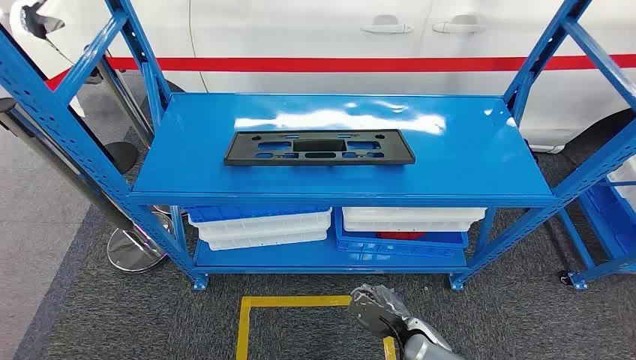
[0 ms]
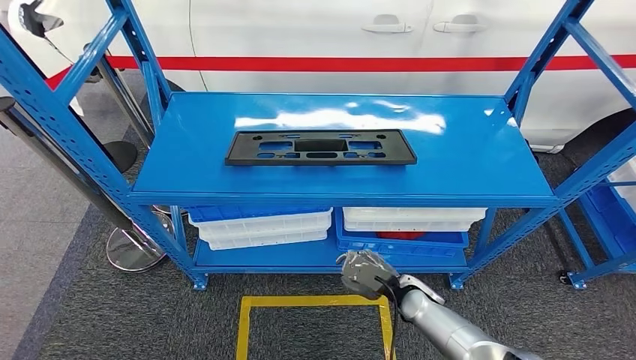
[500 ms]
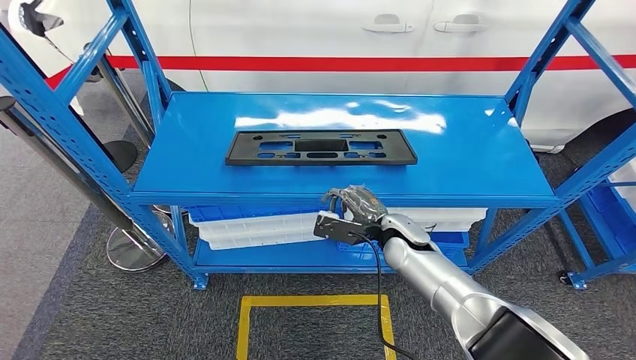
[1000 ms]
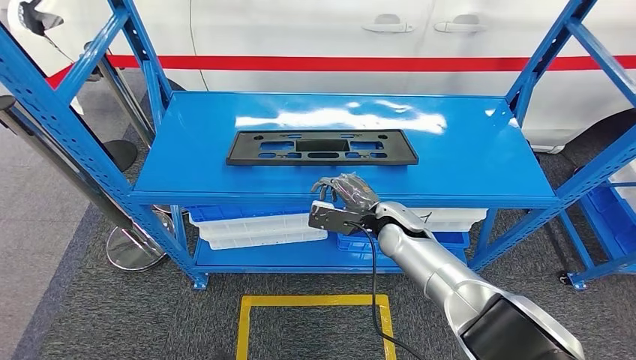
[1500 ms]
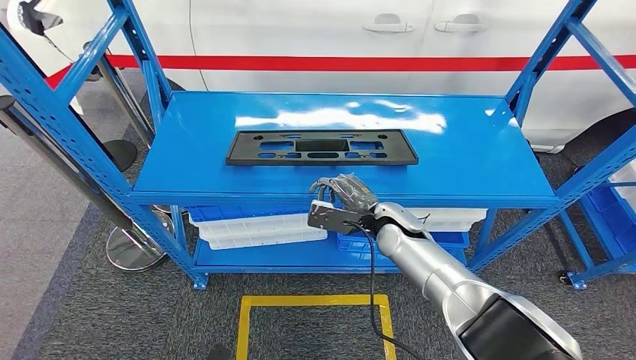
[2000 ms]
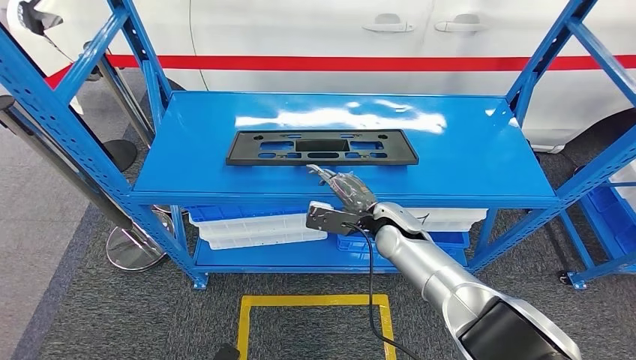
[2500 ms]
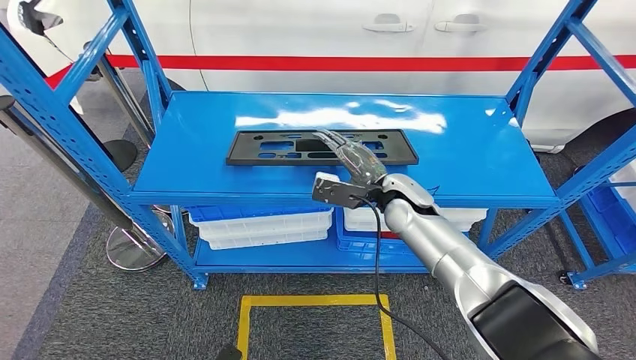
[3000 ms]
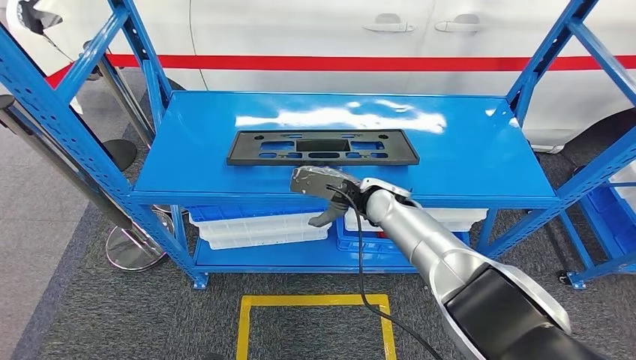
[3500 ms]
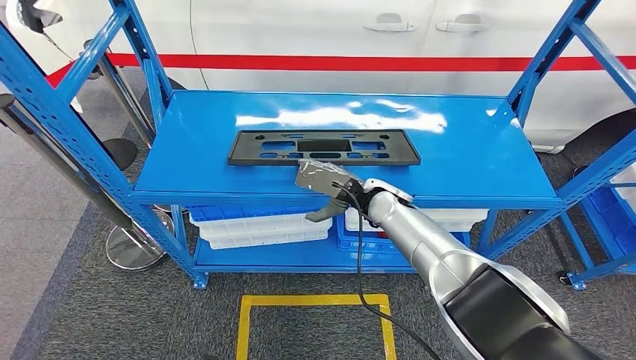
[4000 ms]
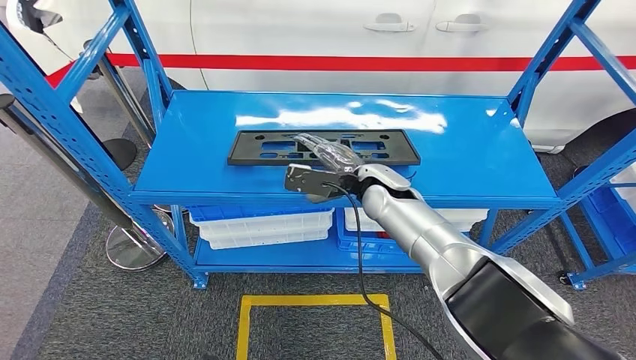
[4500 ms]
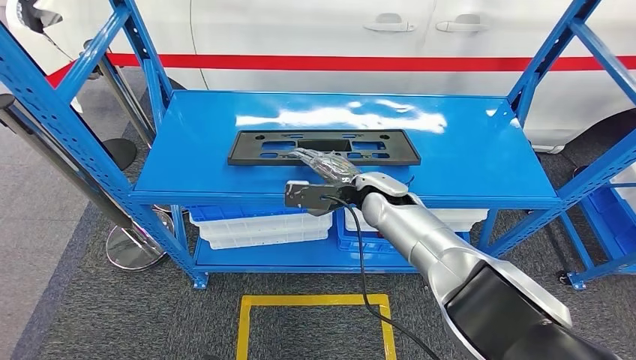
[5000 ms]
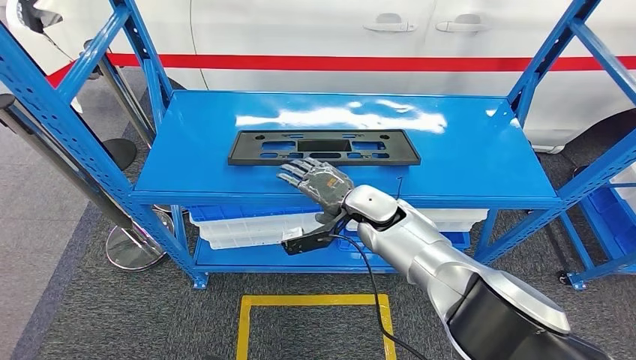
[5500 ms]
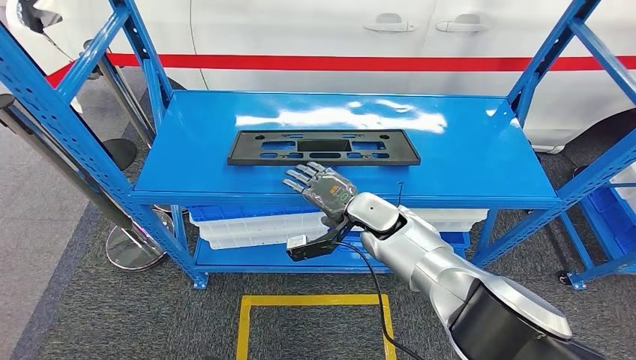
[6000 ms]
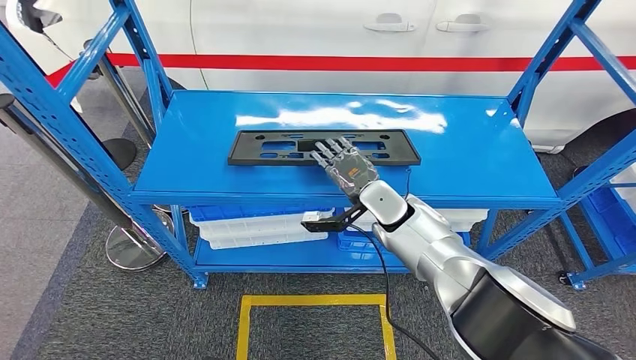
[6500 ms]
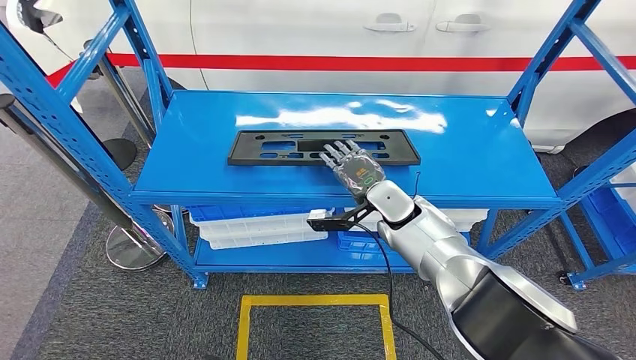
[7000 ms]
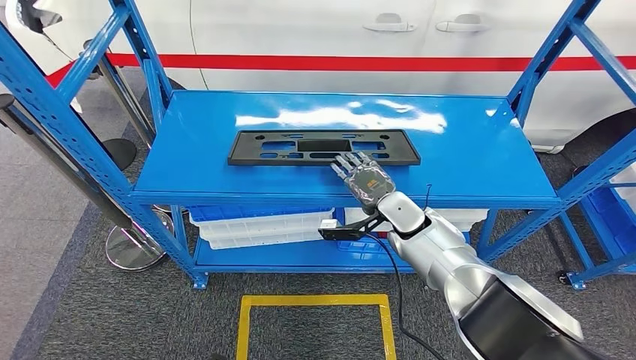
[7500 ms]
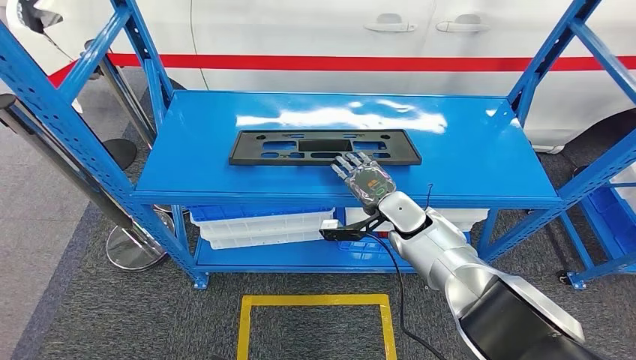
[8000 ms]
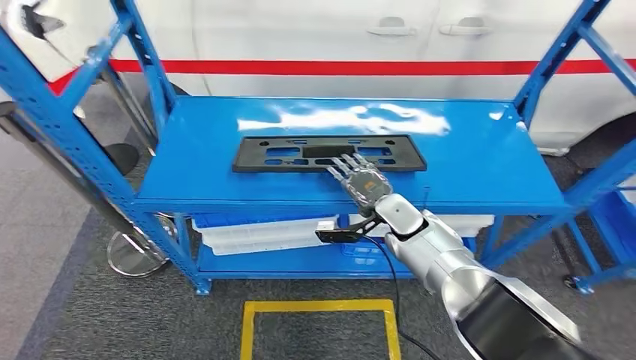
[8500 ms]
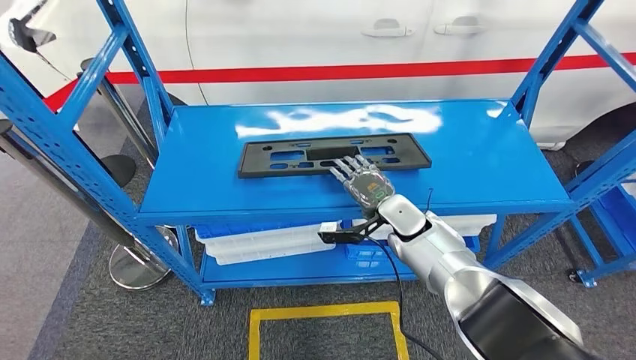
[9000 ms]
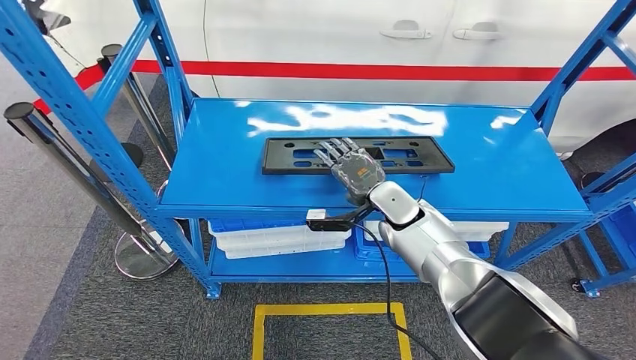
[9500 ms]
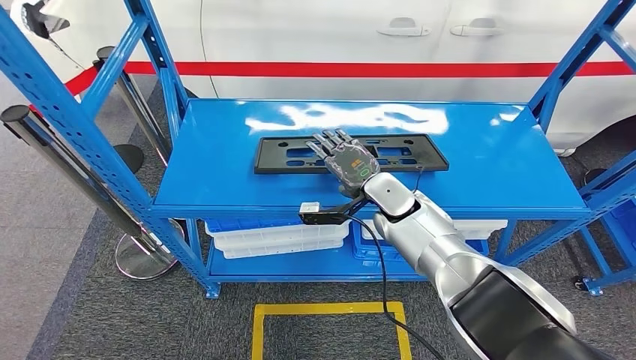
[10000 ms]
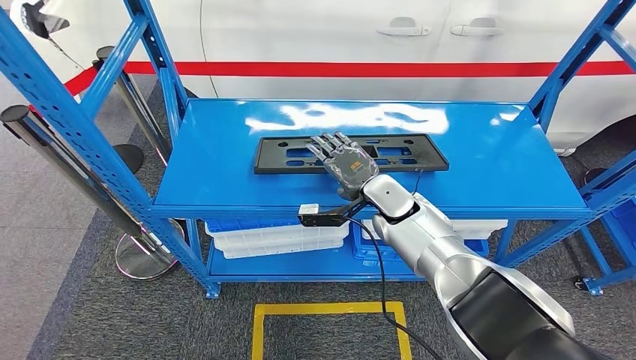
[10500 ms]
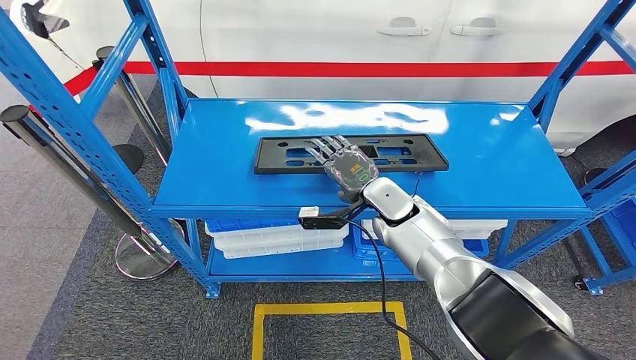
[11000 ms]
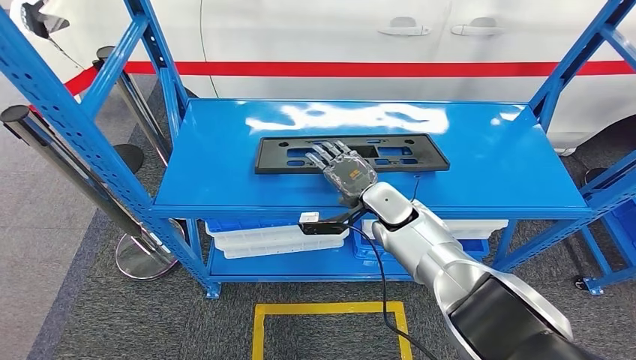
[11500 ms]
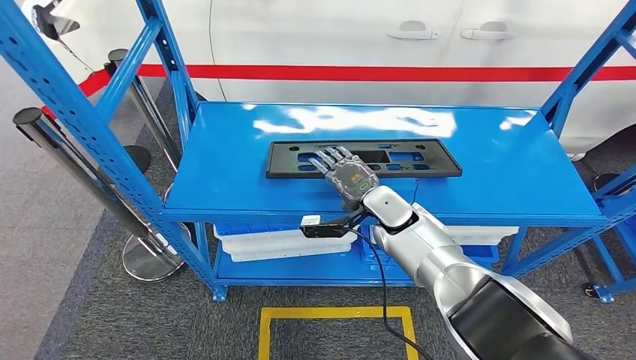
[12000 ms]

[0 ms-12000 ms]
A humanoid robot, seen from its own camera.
2000 ms to 4000 ms: The right hand ends up about 5 cm from where it was.
6000 ms to 8000 ms: The right hand is displaced to the right by approximately 5 cm.

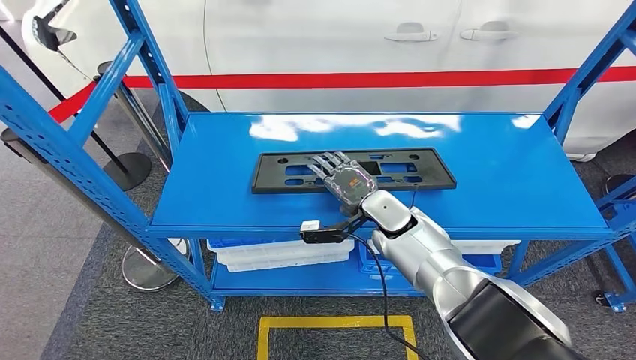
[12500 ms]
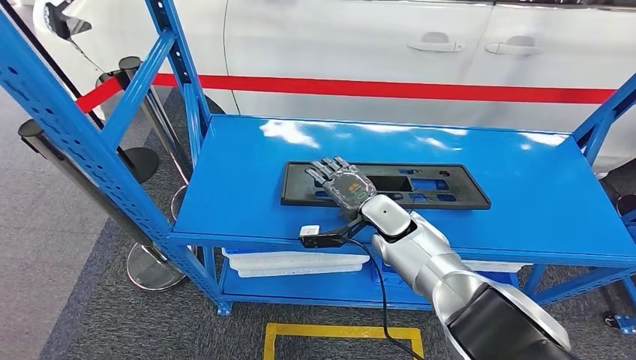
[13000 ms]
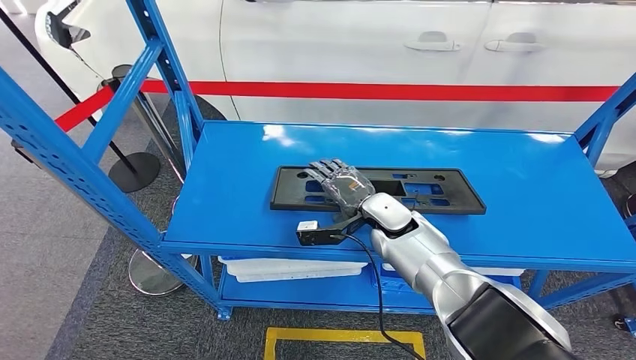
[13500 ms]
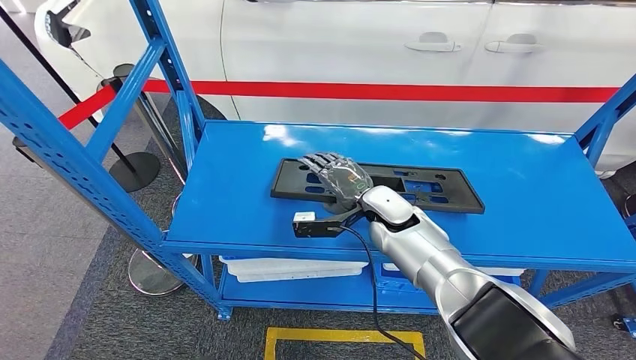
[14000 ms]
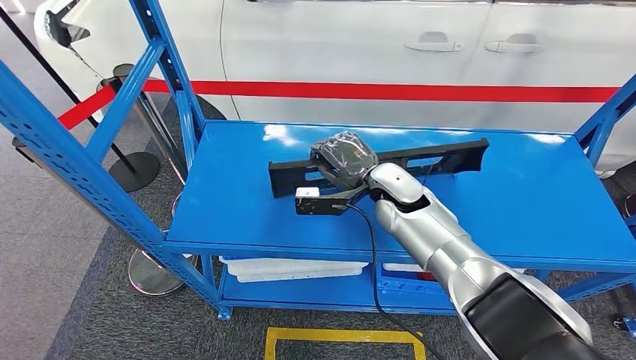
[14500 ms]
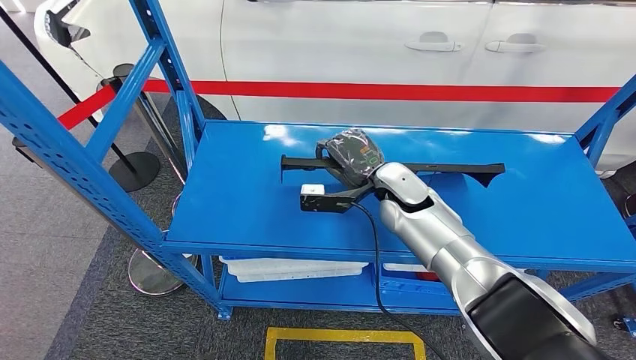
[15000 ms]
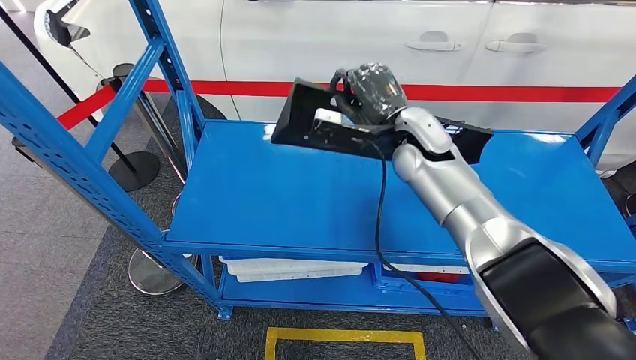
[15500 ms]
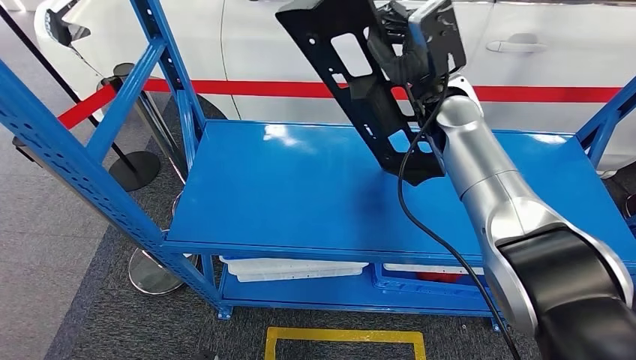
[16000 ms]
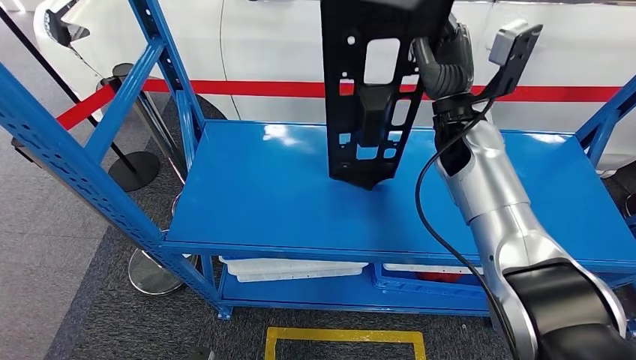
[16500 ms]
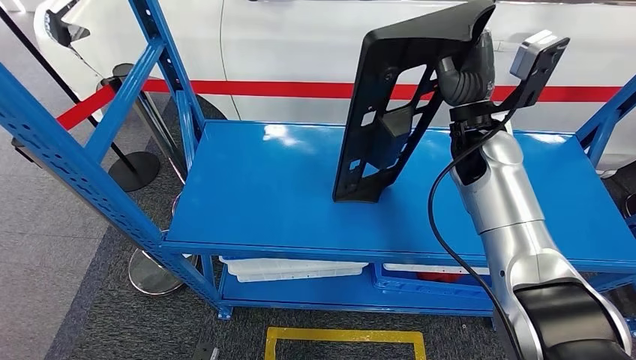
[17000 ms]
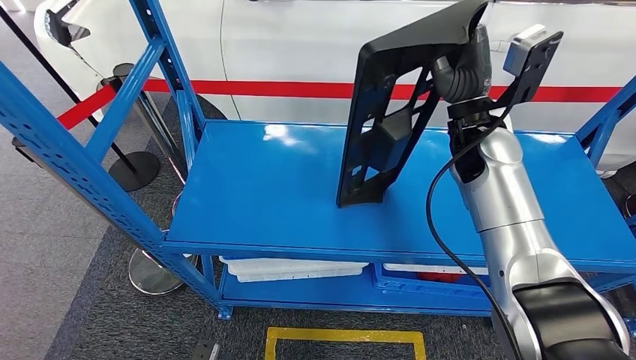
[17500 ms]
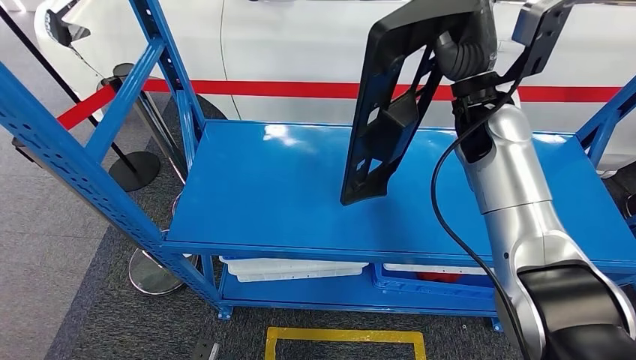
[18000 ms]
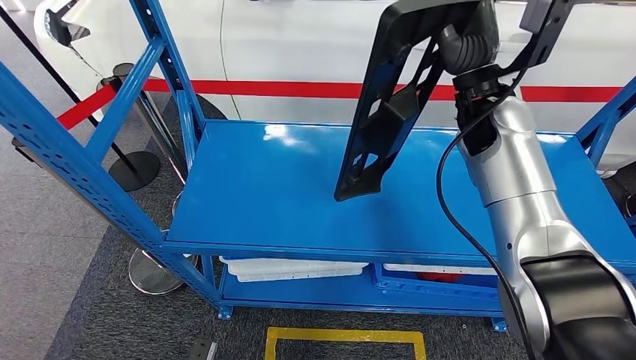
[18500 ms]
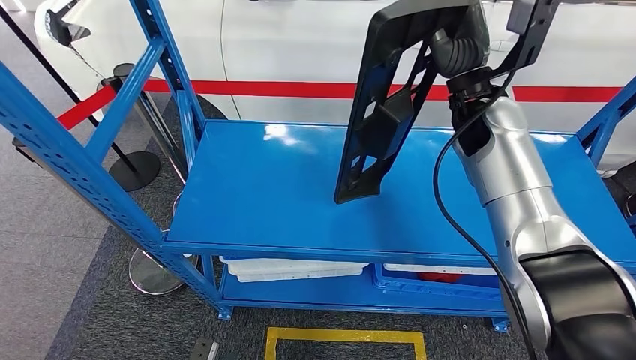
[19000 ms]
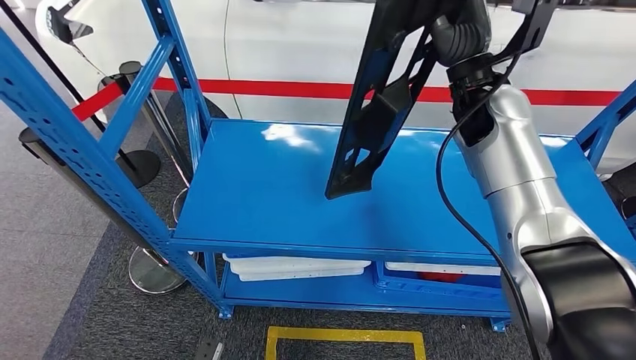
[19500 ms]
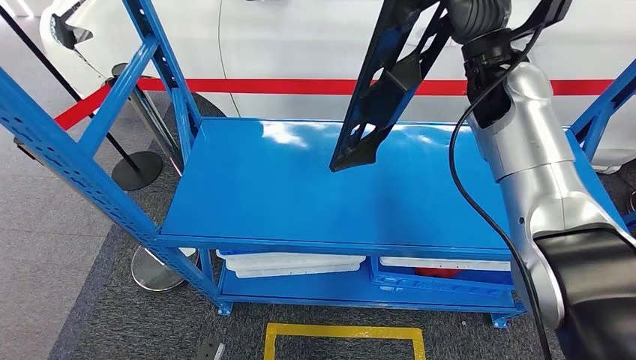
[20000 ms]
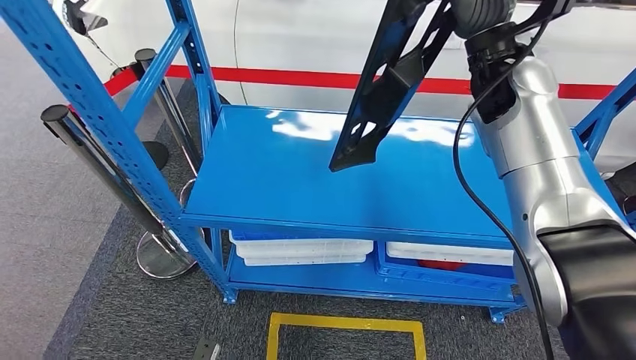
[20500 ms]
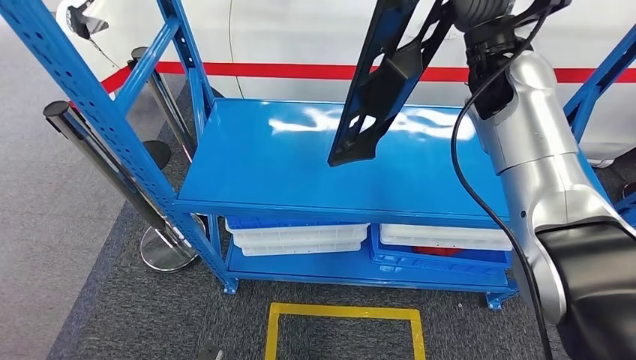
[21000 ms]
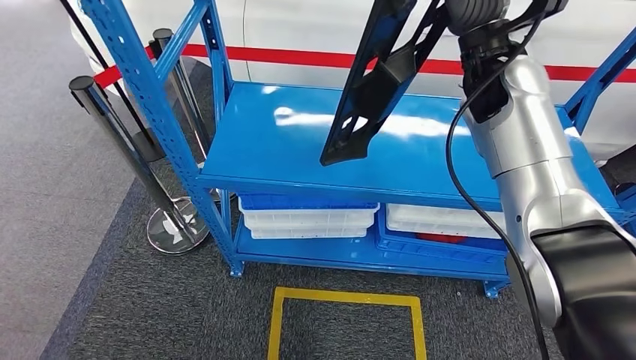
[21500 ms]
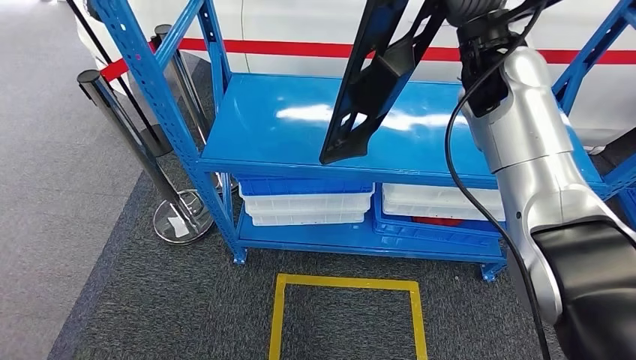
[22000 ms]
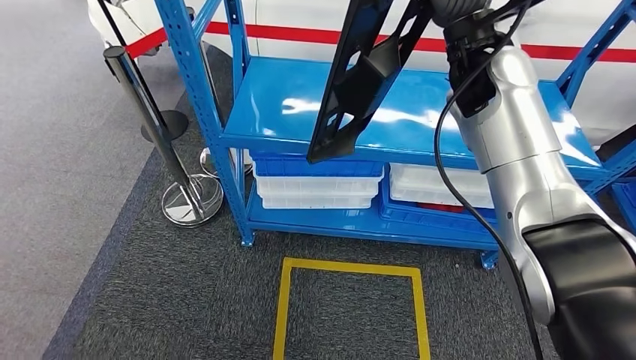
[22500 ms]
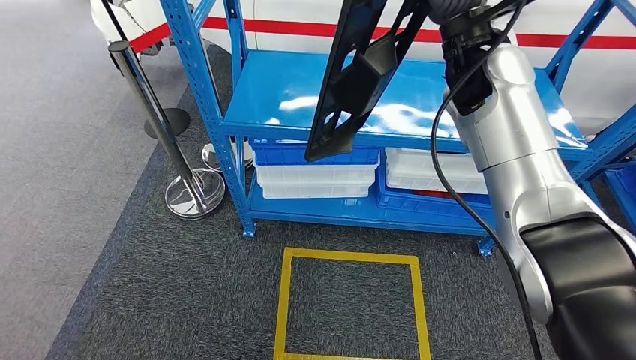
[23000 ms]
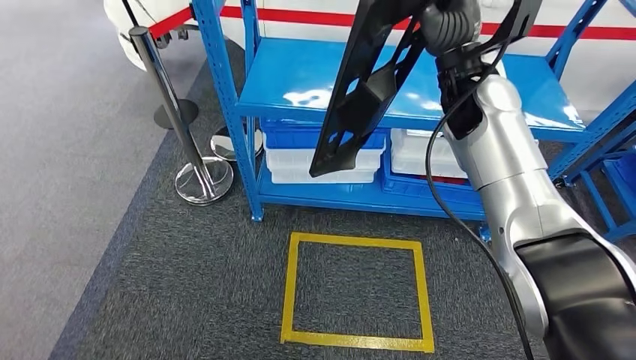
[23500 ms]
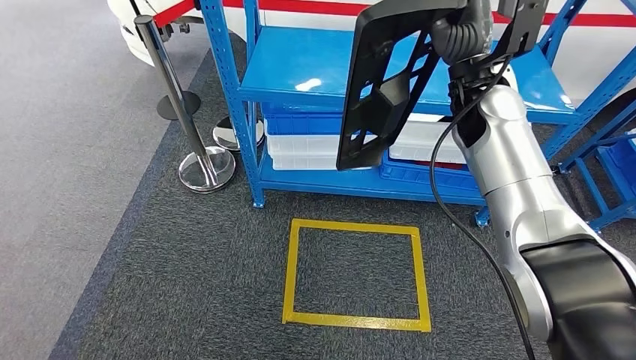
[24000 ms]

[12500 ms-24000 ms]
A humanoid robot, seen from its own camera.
Step, 12500 ms to 17000 ms: Pick up the large material from the shelf.
